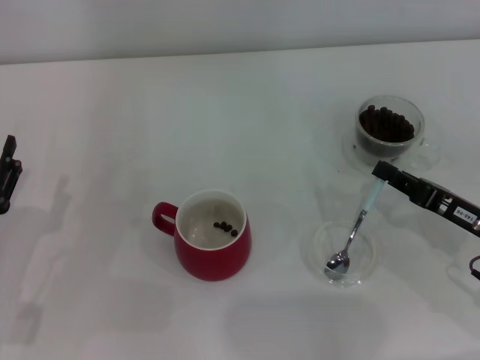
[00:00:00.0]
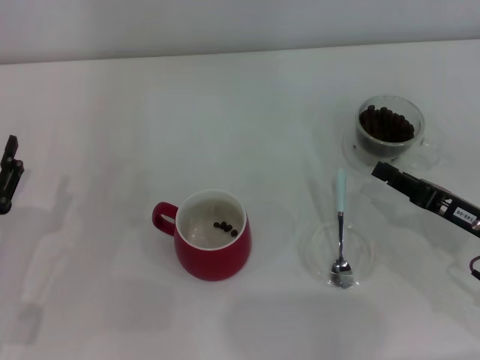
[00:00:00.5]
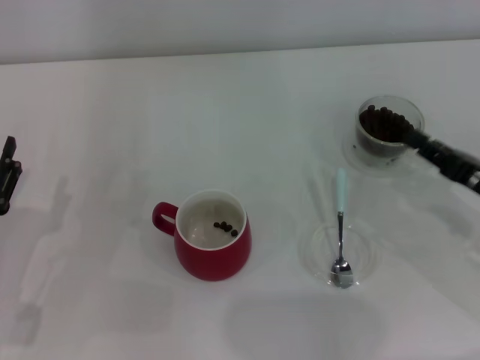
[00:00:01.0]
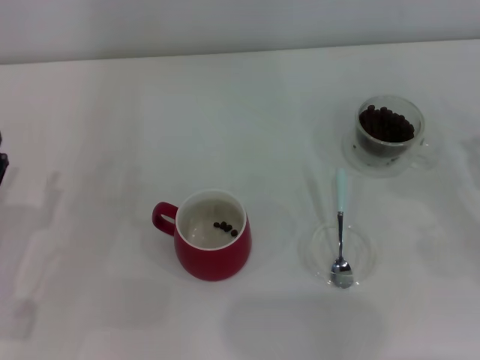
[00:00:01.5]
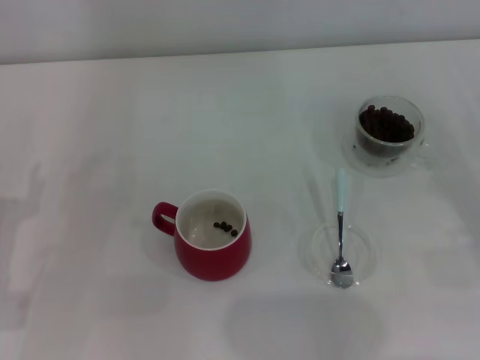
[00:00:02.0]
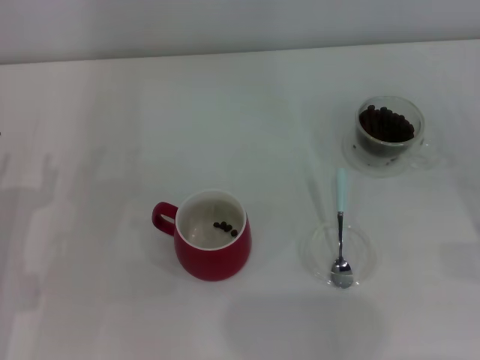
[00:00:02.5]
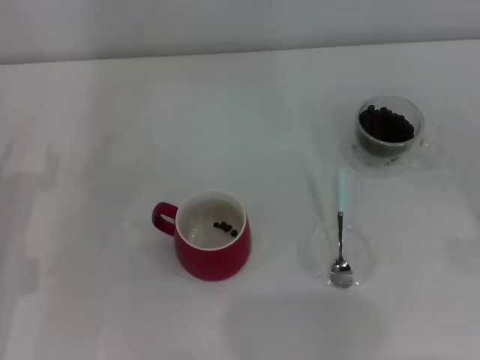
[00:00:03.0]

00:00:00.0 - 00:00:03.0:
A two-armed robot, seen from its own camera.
Task of the whole recording: Use a blue spoon to take out the coffee beans from the glass and pour them into the red cup.
00:00:00.0 - 00:00:01.5: The right gripper heads to the right, covering about 10 cm.

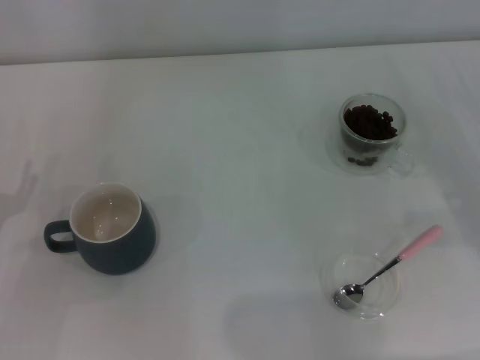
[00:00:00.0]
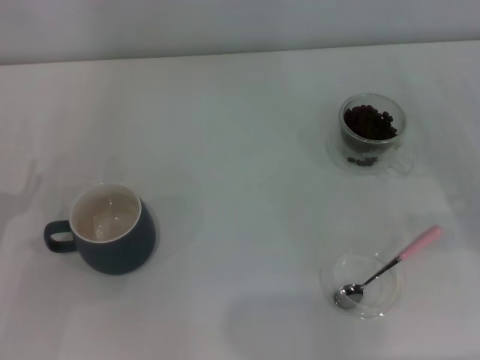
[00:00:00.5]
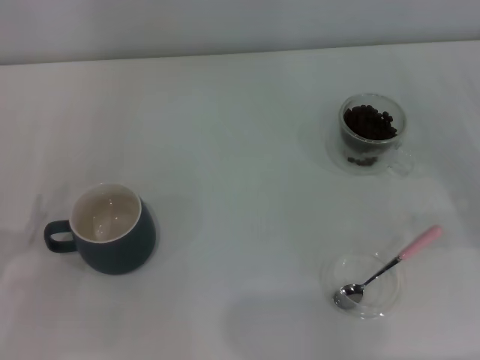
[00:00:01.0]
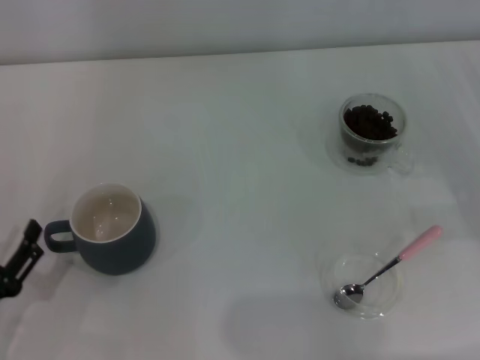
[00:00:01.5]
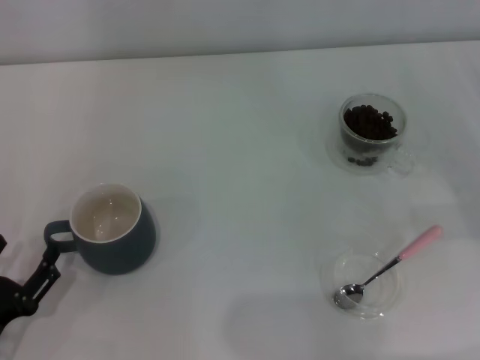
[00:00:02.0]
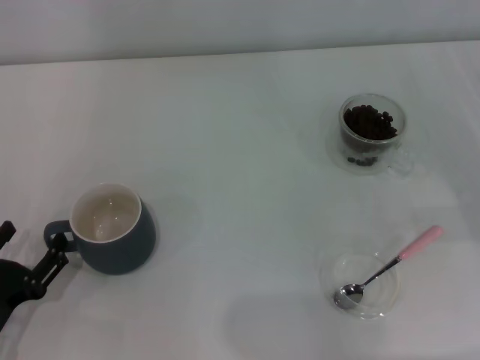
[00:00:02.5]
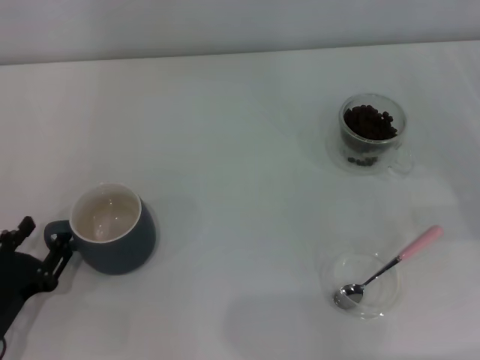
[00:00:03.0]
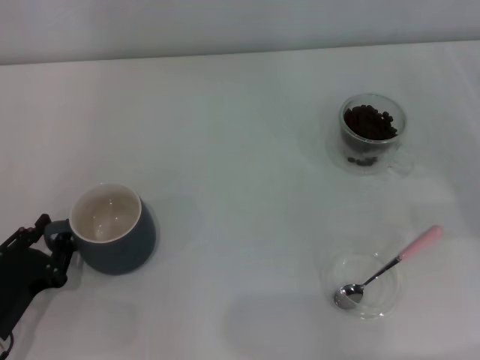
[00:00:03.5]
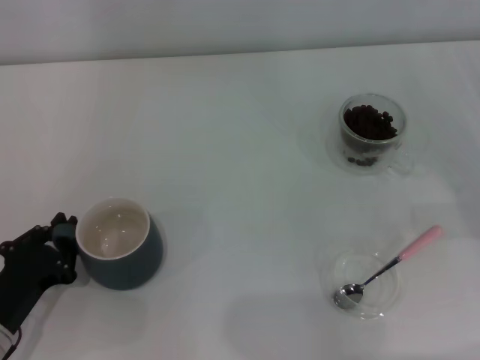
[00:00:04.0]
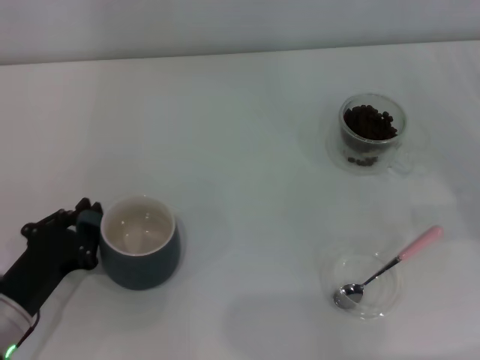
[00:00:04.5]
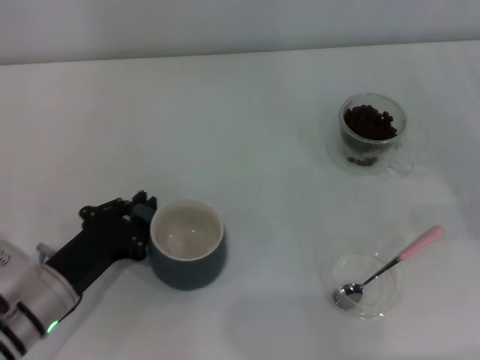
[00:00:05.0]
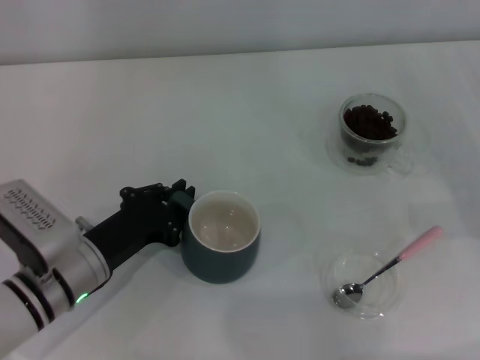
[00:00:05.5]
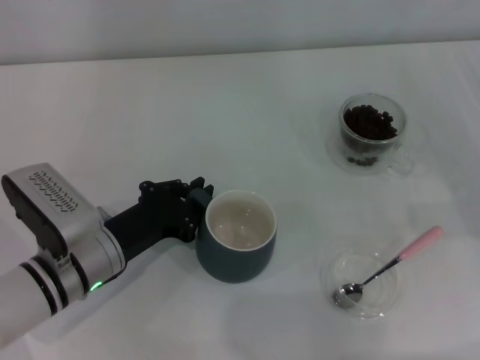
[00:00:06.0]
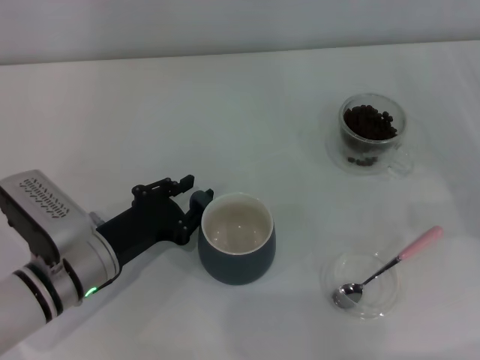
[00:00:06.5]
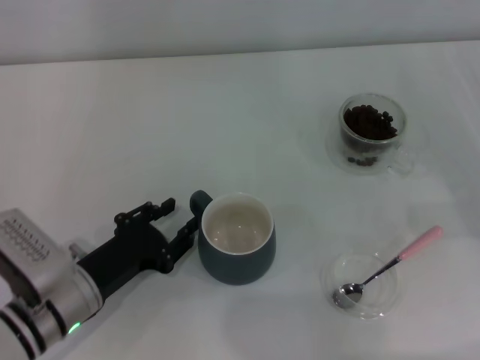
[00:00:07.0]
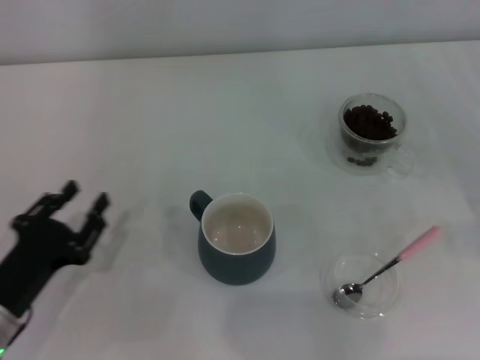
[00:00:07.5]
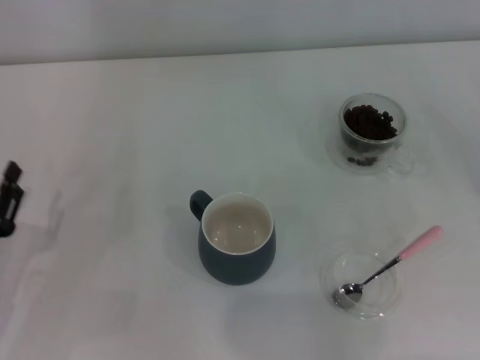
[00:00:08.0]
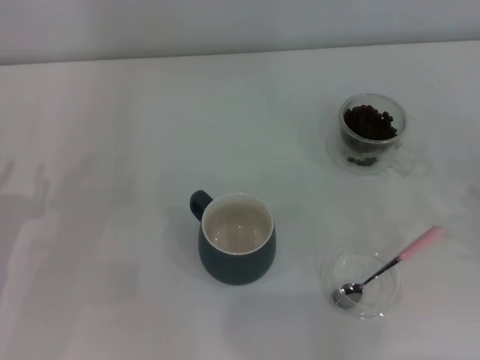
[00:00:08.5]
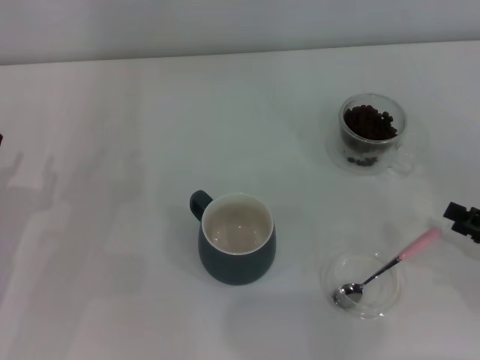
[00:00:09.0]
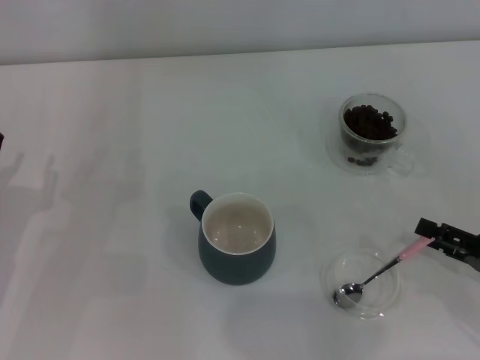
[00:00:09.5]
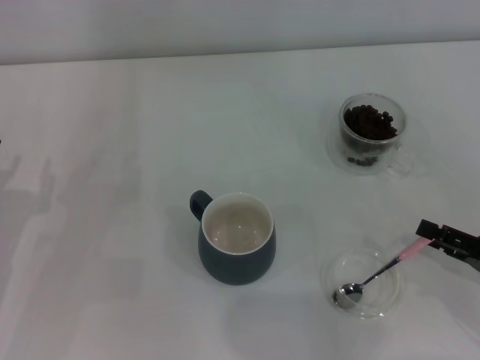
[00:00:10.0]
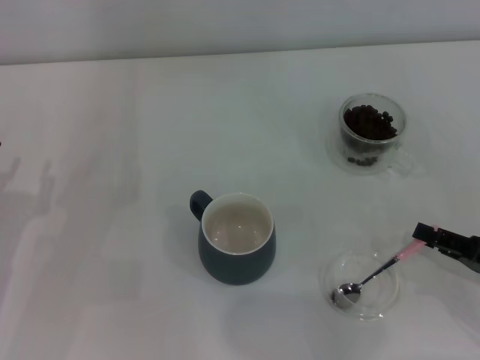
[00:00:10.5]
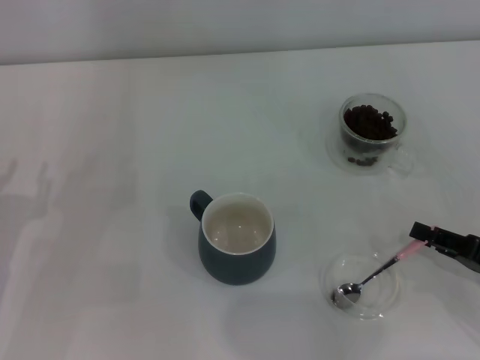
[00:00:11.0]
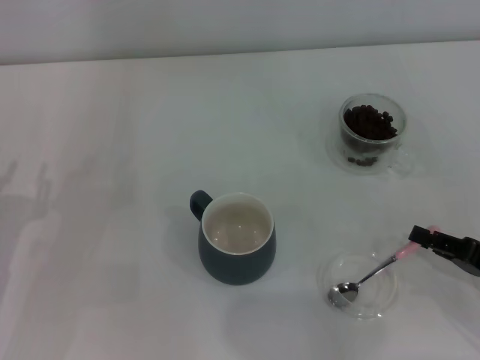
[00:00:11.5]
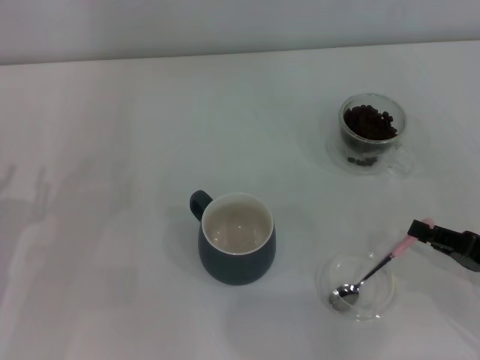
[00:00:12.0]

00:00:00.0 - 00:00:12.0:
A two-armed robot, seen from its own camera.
Task of the whole recording: Use a pink spoon to take out the coffee beans from the glass and pour them into the gray cup.
Step, 00:00:00.0 - 00:00:07.0: Move the cup to the center of view with the left gripper.
00:00:00.0 - 00:00:02.0: The left gripper travels backward by approximately 10 cm.
00:00:02.0 - 00:00:04.0: The left gripper moves about 5 cm, and closes its fingers.
00:00:04.0 - 00:00:06.0: The left gripper travels to the right and forward by about 15 cm.
00:00:06.0 - 00:00:08.0: The right gripper moves backward, approximately 5 cm. The left gripper heads to the left and backward, covering roughly 15 cm, and opens.
00:00:08.0 - 00:00:10.0: The right gripper shifts approximately 10 cm to the left.
00:00:10.0 - 00:00:12.0: The right gripper closes its fingers.

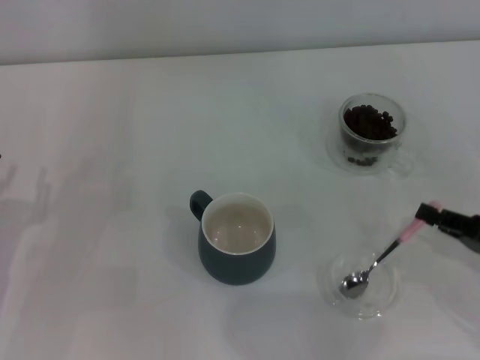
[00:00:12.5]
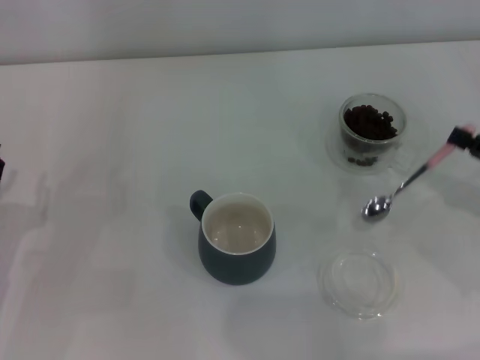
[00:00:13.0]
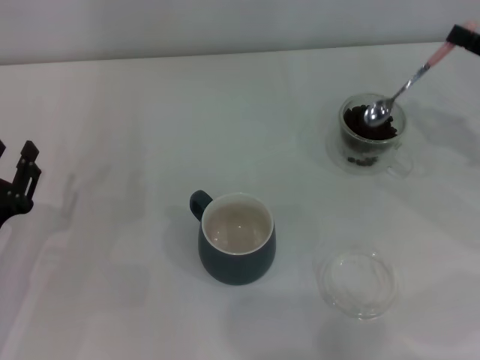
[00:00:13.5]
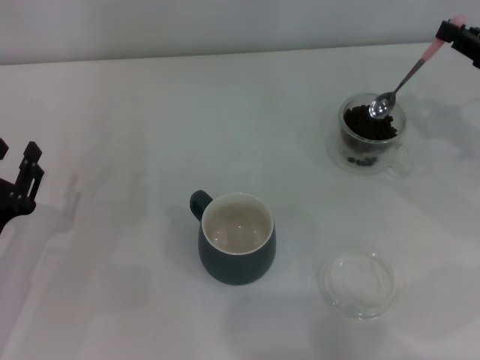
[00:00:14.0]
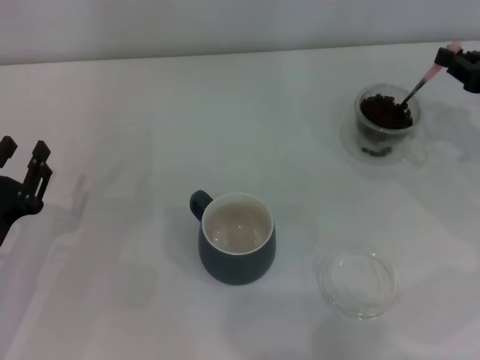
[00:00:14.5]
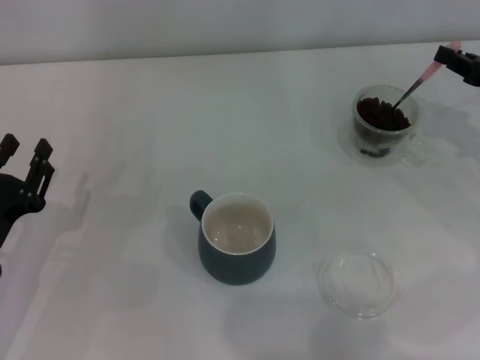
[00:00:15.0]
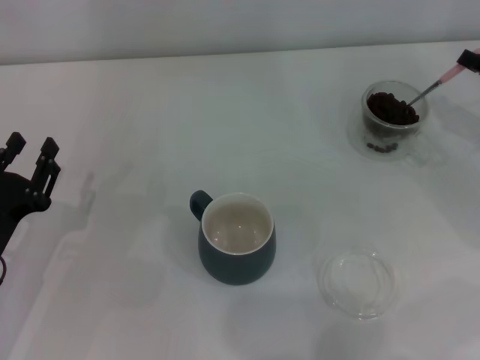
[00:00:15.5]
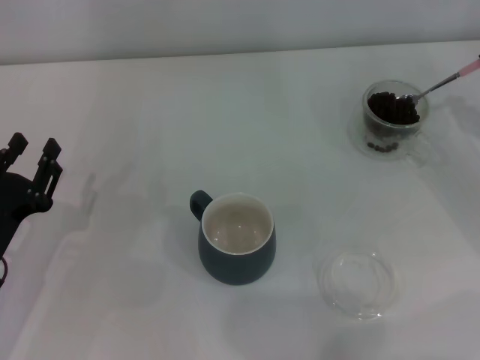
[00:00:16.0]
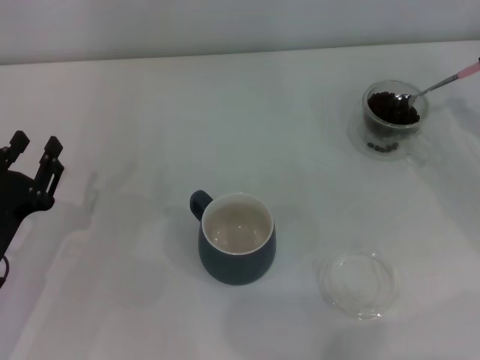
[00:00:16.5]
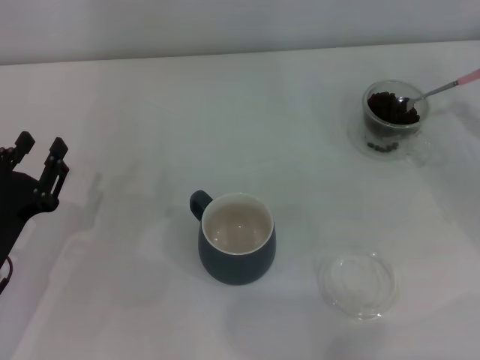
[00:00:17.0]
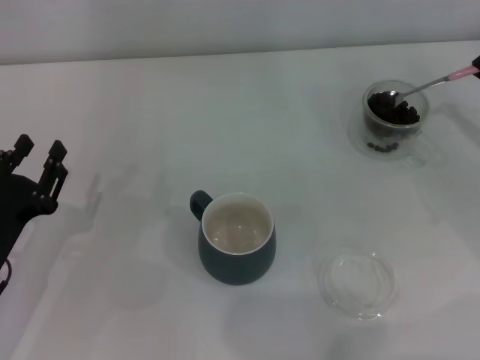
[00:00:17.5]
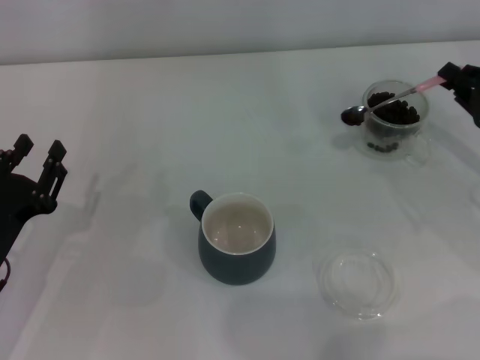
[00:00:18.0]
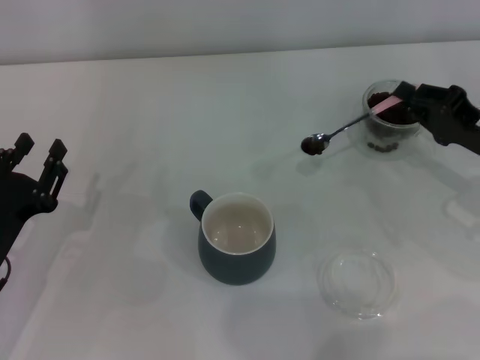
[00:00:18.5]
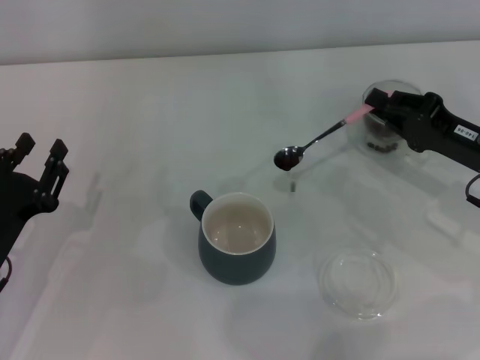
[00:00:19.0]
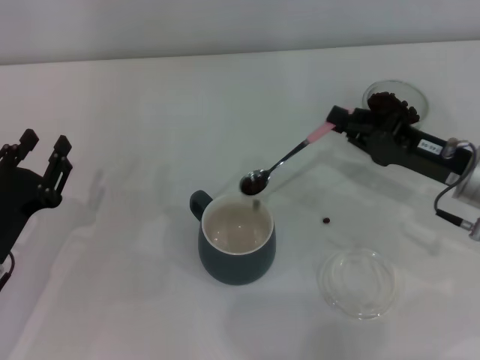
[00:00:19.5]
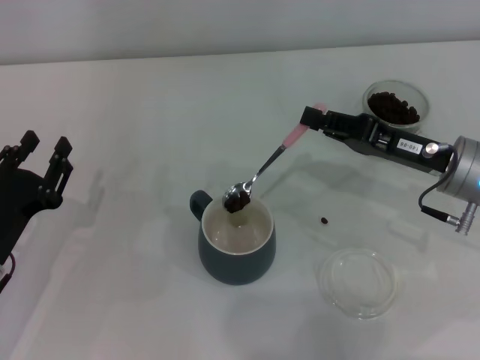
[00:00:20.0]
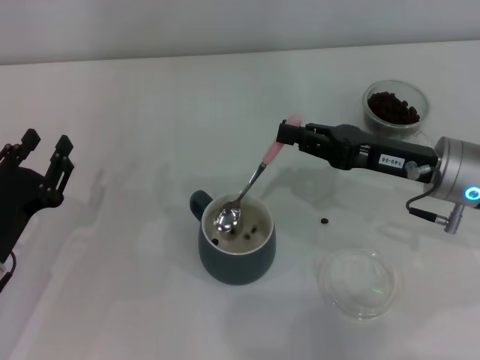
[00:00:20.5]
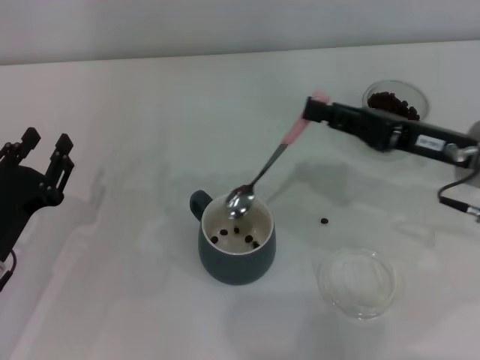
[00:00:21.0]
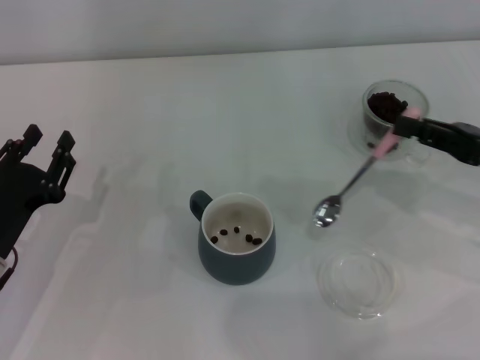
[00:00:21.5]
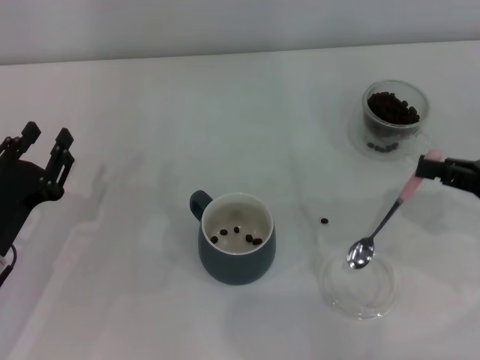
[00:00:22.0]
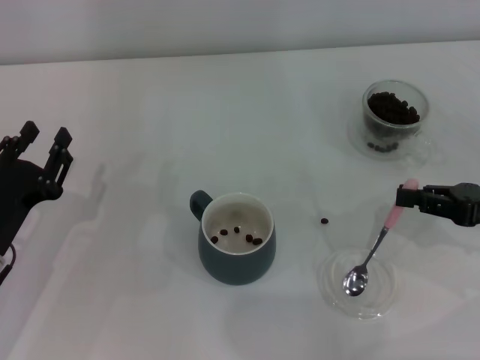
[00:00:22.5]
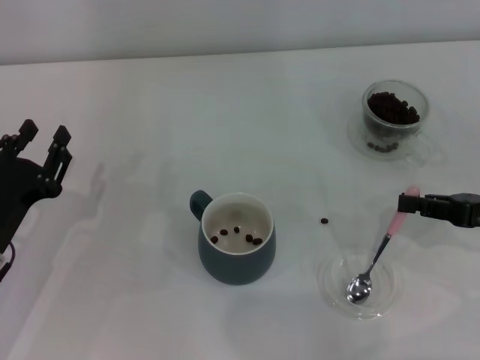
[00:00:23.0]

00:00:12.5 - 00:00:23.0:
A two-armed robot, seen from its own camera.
Task of the whole recording: Use a pink spoon to take out the coffee beans from the glass and pour them into the gray cup.
Step, 00:00:13.0 - 00:00:20.0: Scoop a spoonful of beans into the cup with the right gripper.
00:00:12.5 - 00:00:14.5: The right gripper heads forward and upward, covering about 15 cm.
00:00:16.5 - 00:00:19.0: The right gripper is displaced to the left by some 10 cm.
00:00:19.0 - 00:00:21.0: The right gripper moves approximately 5 cm.
00:00:21.0 - 00:00:23.0: The right gripper shifts roughly 10 cm to the right and backward.
